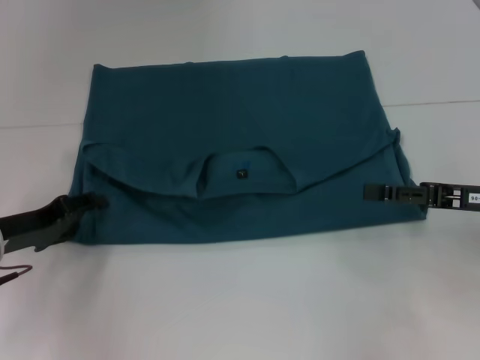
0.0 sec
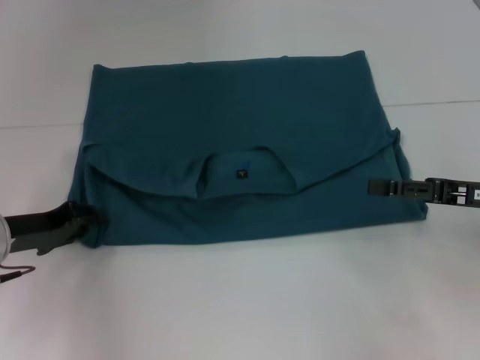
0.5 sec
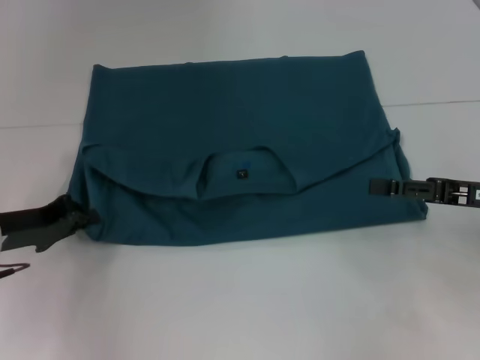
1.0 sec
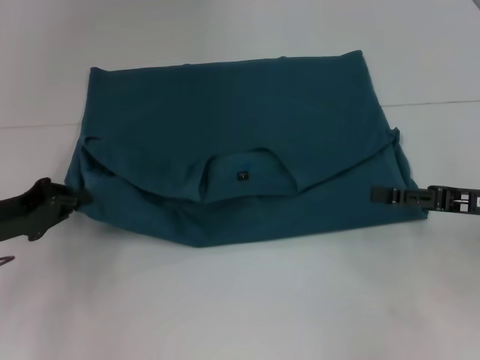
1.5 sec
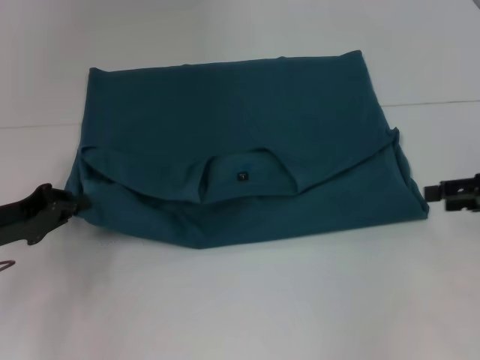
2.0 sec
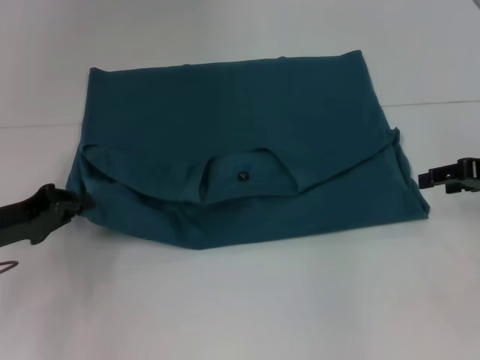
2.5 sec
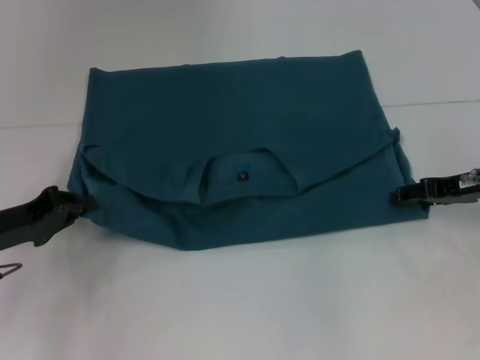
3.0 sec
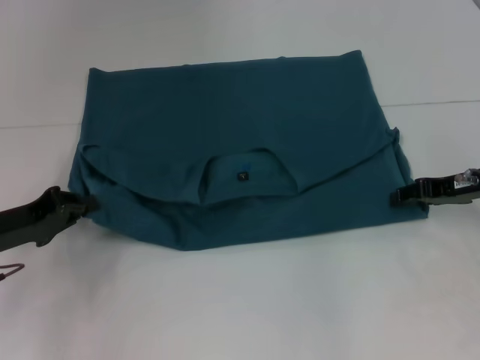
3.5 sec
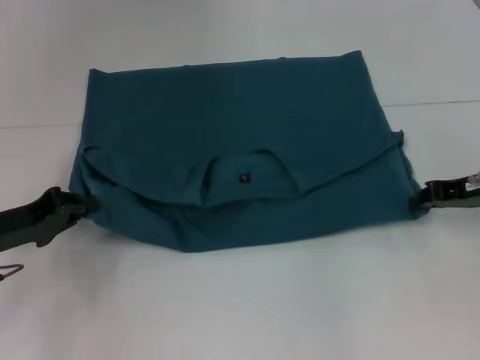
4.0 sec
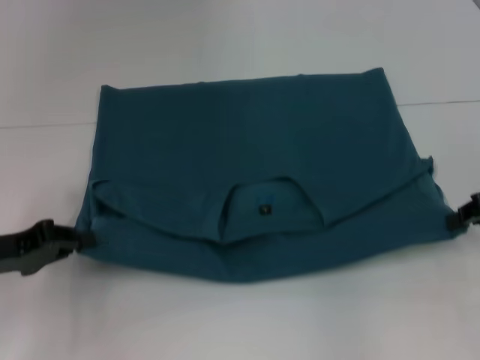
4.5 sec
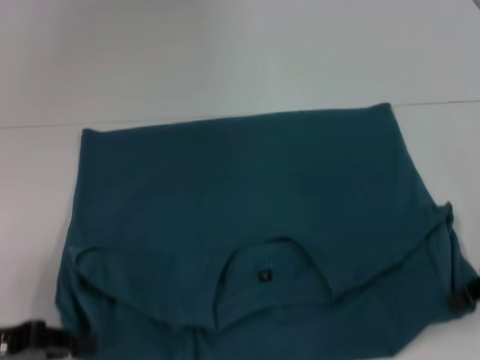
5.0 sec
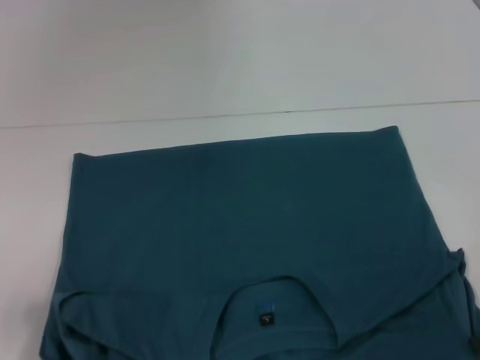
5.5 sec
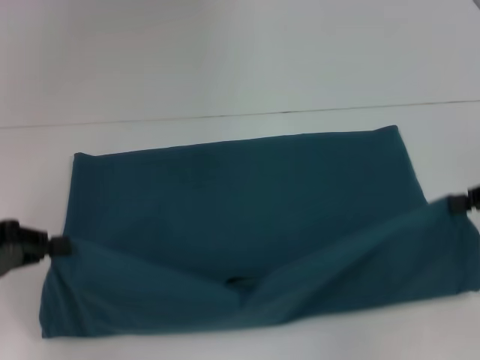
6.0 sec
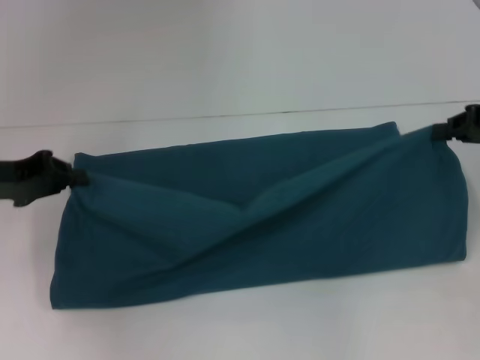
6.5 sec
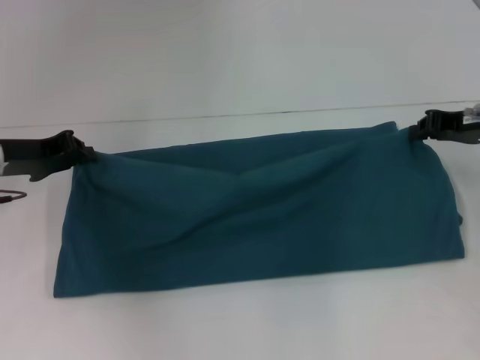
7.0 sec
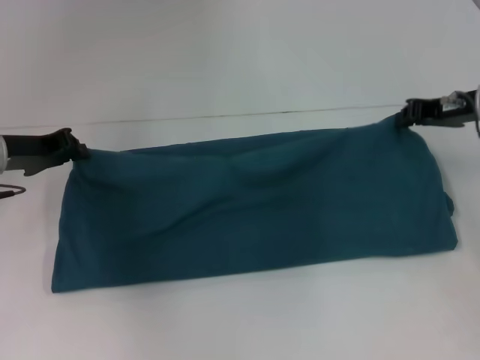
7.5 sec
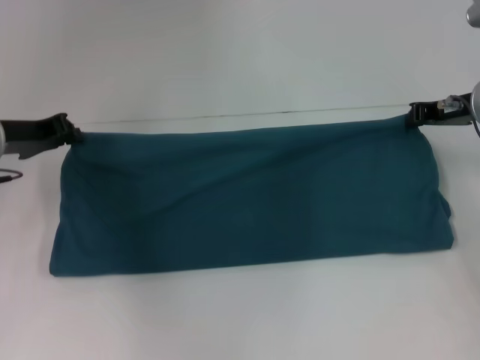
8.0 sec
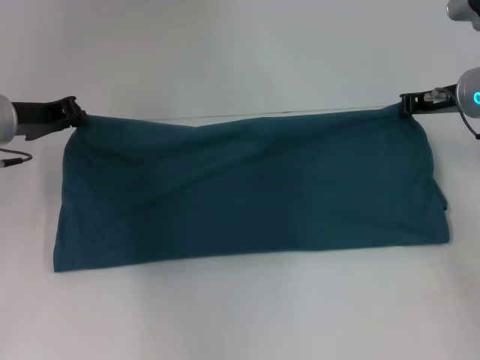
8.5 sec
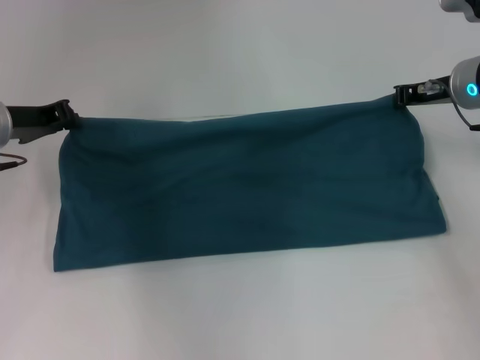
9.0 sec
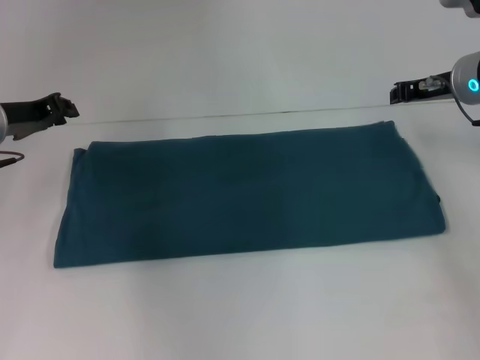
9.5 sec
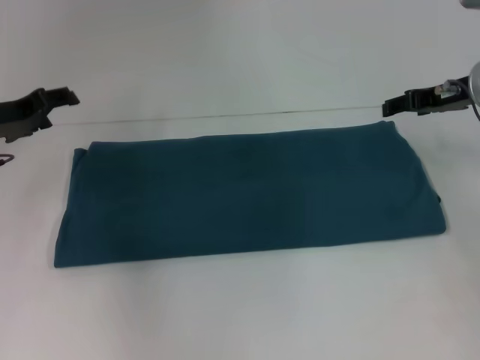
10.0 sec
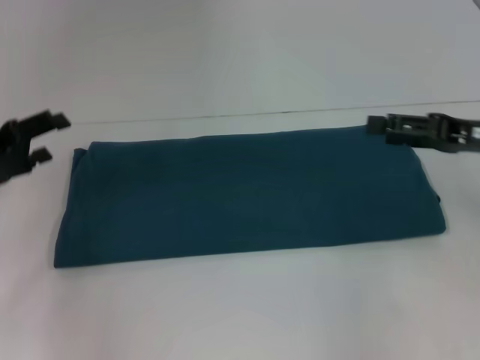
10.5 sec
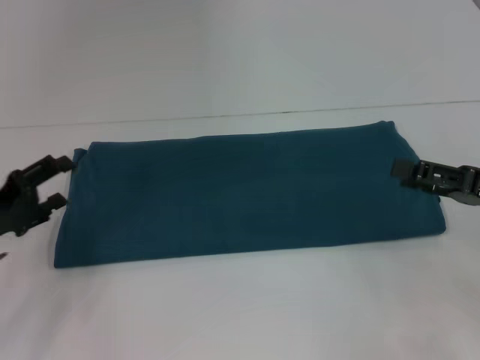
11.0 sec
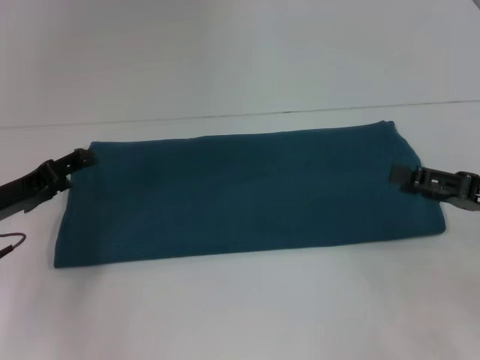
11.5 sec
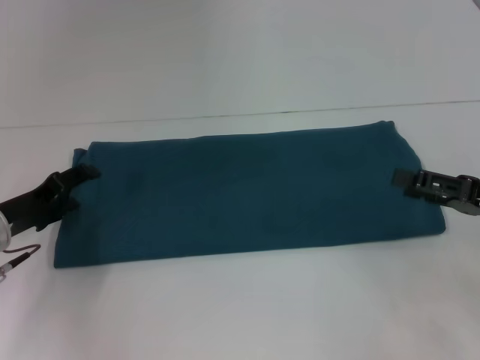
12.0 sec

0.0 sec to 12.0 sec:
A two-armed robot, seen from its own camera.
Step, 0.0 sec to 4.5 sec: Pull the clothes with your left hand.
Step, 0.0 sec to 4.5 sec: Pull the clothes with your right hand.
Step, 5.0 sec to 9.5 sec: Fold the clothes to the right.
0.0 sec to 2.0 sec: The left gripper closes. Meanwhile the right gripper shifts approximately 5 cm to the right.
2.0 sec to 4.0 sec: The right gripper ends up some 5 cm from where it was, and closes its fingers.
4.0 sec to 6.0 sec: The left gripper shifts roughly 5 cm upward, and travels backward and back again, roughly 10 cm each way, while the right gripper shifts some 10 cm backward and upward.
6.0 sec to 8.0 sec: The left gripper travels forward and to the right by roughly 15 cm, while the right gripper is displaced forward and to the left by approximately 15 cm.
8.0 sec to 10.0 sec: The right gripper opens its fingers. The left gripper opens up.
10.0 sec to 12.0 sec: The right gripper moves backward and downward, approximately 15 cm, and opens. Meanwhile the left gripper heads downward and backward, covering approximately 10 cm.

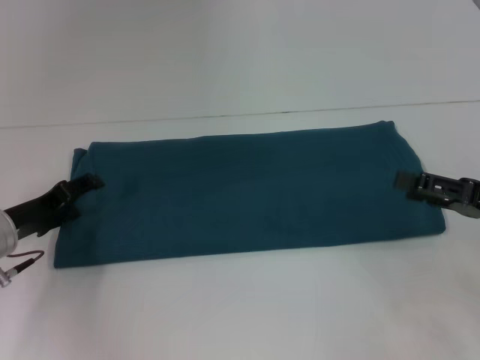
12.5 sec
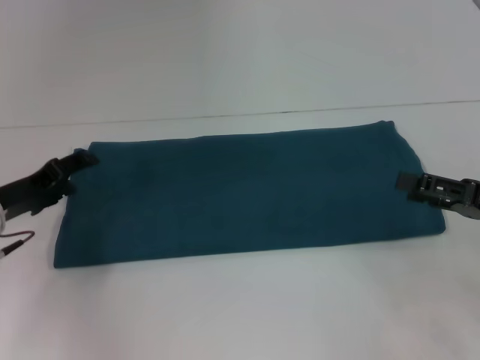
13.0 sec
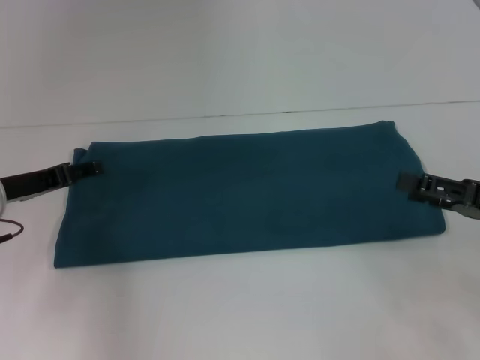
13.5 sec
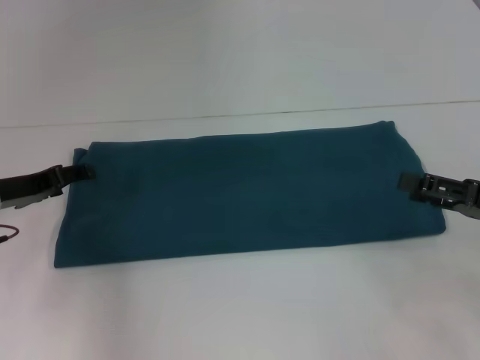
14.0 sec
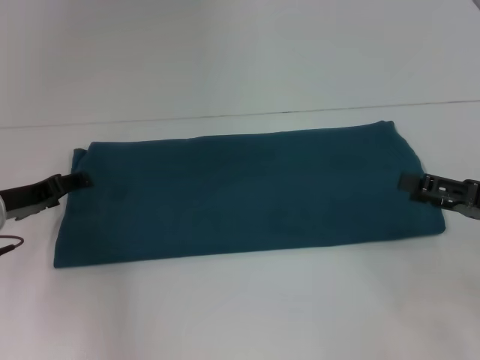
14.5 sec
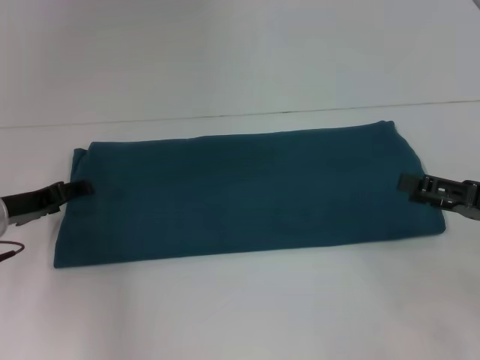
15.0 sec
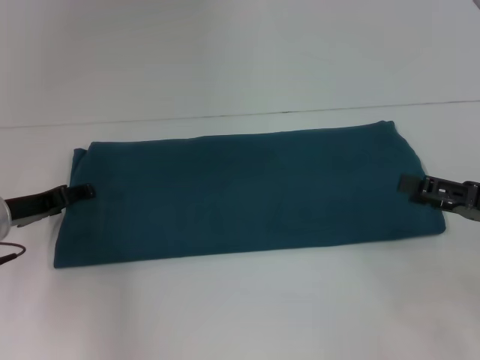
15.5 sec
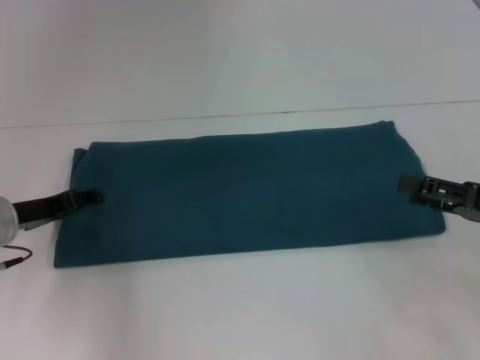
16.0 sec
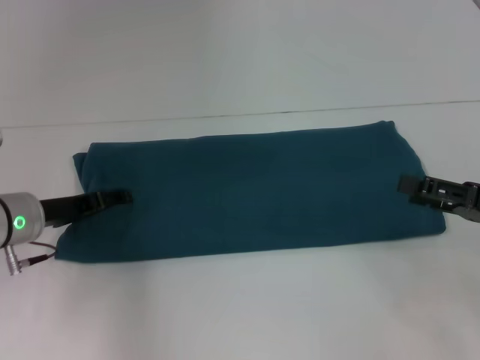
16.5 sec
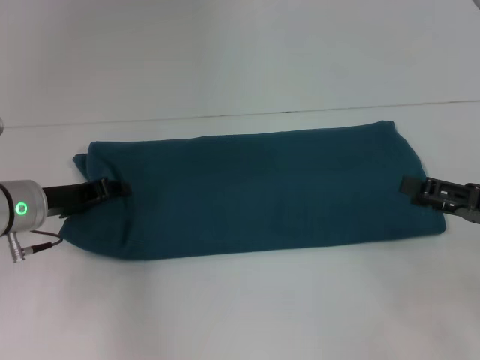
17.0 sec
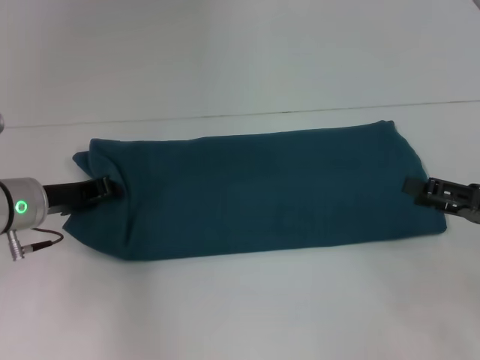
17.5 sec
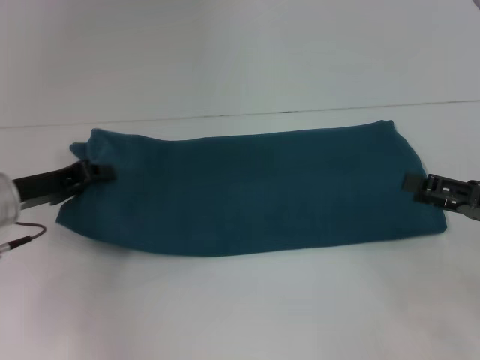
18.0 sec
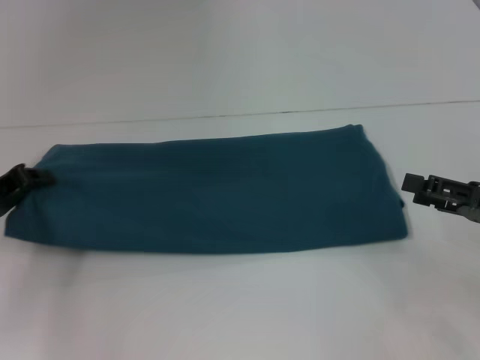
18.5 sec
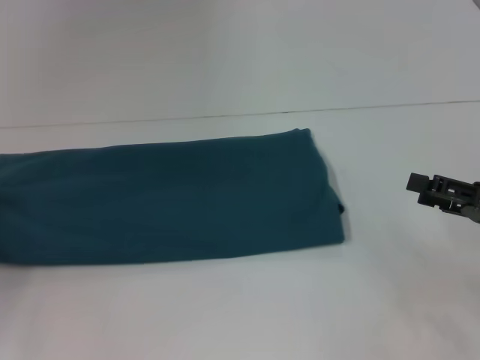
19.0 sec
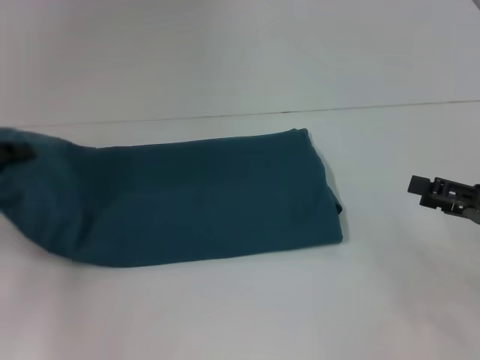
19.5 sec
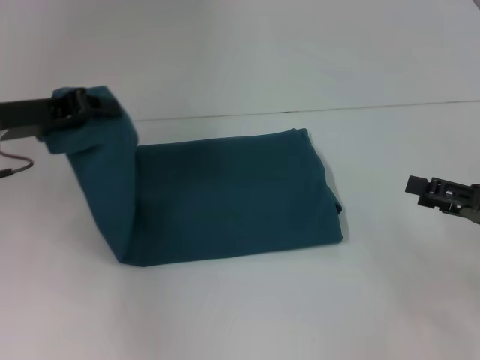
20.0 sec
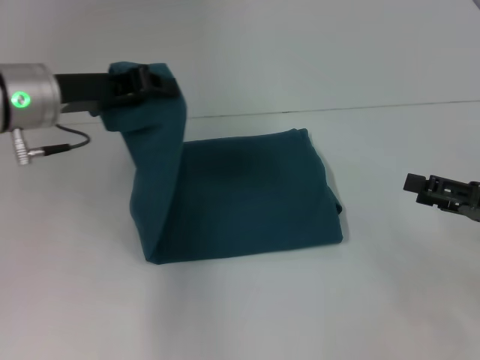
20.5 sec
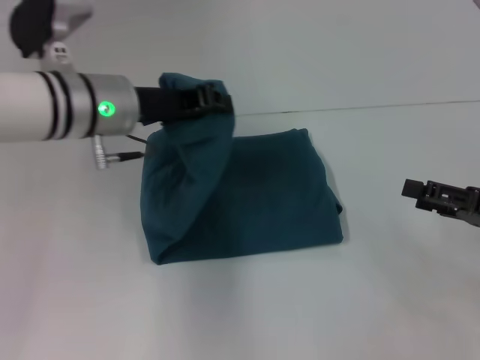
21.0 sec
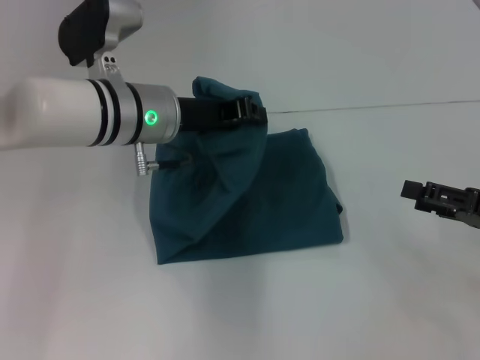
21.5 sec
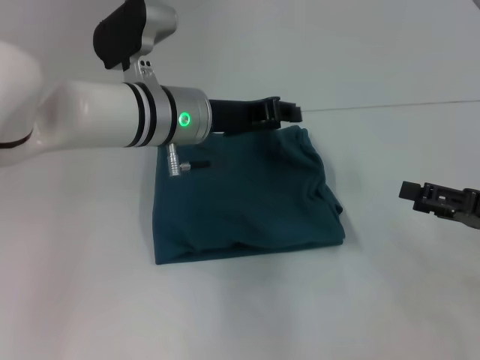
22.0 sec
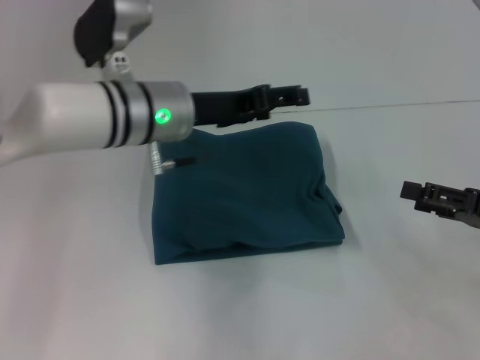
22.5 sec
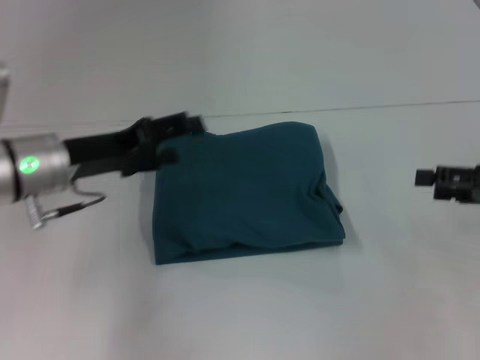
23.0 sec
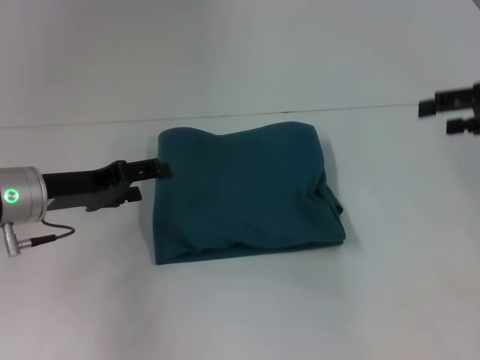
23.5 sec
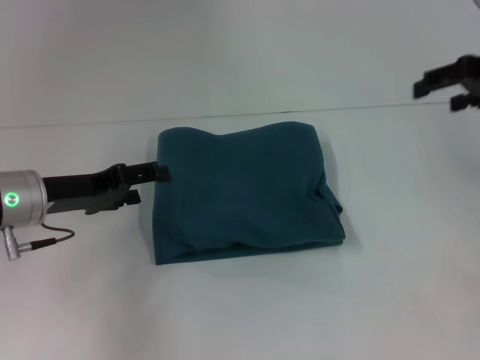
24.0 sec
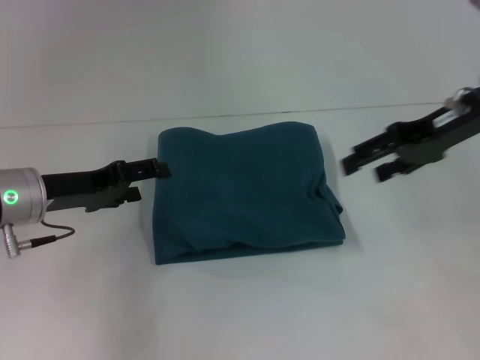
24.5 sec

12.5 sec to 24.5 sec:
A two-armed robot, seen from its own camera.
Step, 12.5 sec to 22.0 sec: Fold the clothes to the left.
14.5 sec to 16.5 sec: The grippers move only a little.
16.5 sec to 18.5 sec: The left gripper goes roughly 5 cm to the left, and closes up.
18.5 sec to 20.5 sec: The left gripper shifts some 15 cm upward and to the right.
20.5 sec to 22.5 sec: The left gripper is displaced to the right by approximately 10 cm, and opens up.
22.5 sec to 24.5 sec: The left gripper shifts roughly 15 cm to the left; the right gripper goes approximately 20 cm upward, forward and to the left.

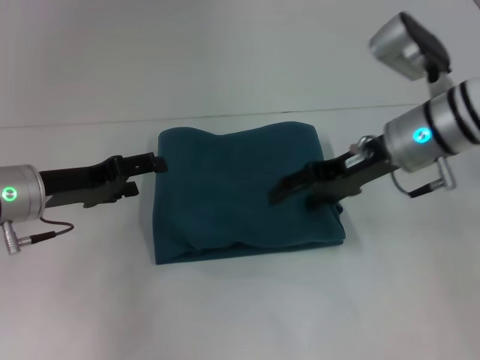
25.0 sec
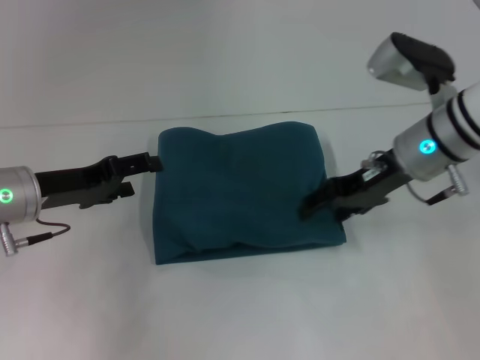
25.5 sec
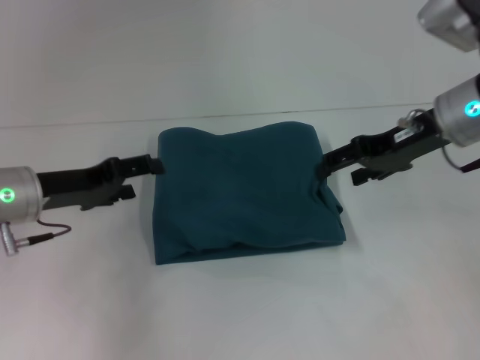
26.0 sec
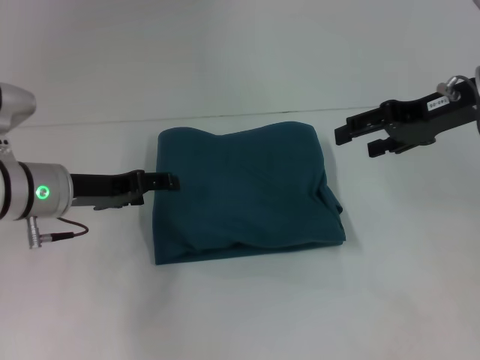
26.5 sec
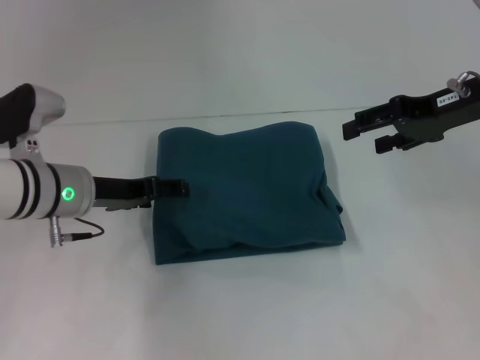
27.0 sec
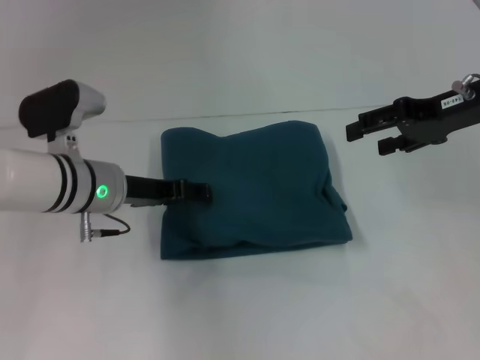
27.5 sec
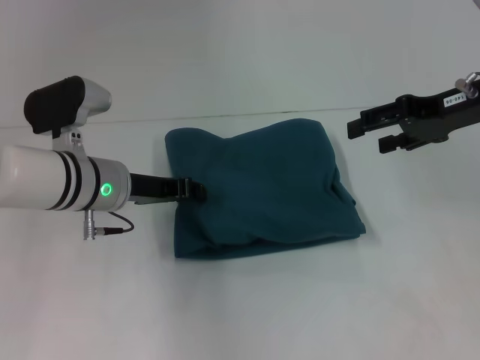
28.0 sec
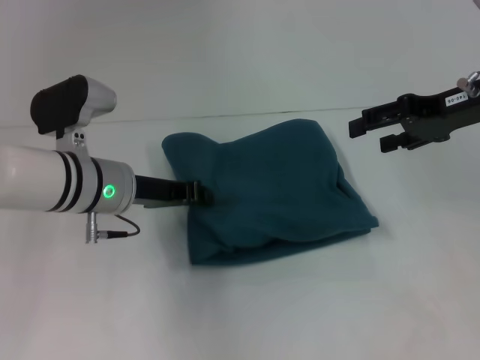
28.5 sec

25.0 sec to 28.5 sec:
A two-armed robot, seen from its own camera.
25.0 sec to 27.0 sec: The left gripper shifts by some 5 cm, while the right gripper is displaced to the right and upward by about 10 cm.
27.0 sec to 28.5 sec: The left gripper closes its fingers.
